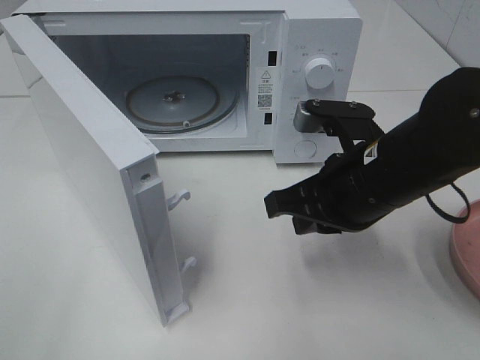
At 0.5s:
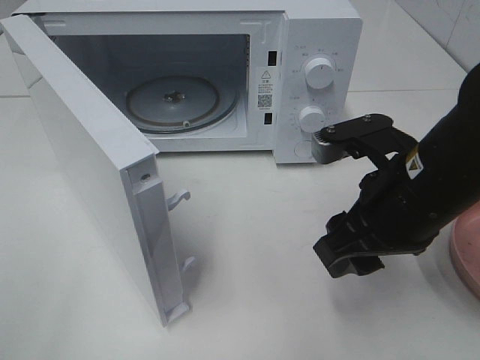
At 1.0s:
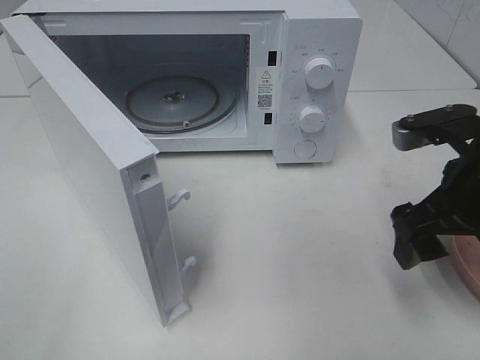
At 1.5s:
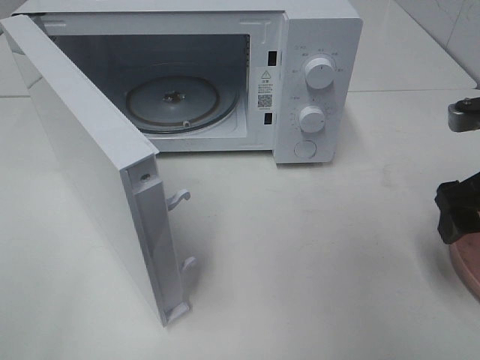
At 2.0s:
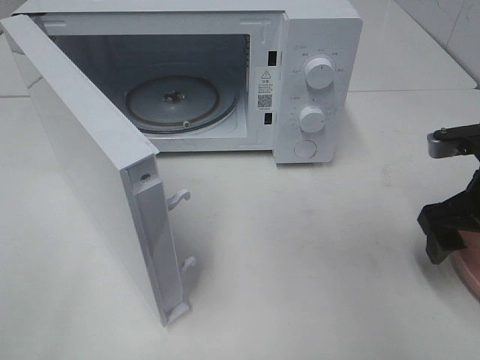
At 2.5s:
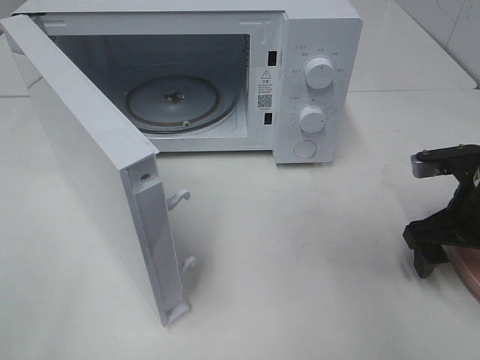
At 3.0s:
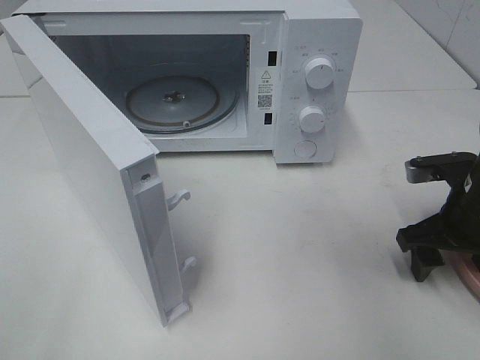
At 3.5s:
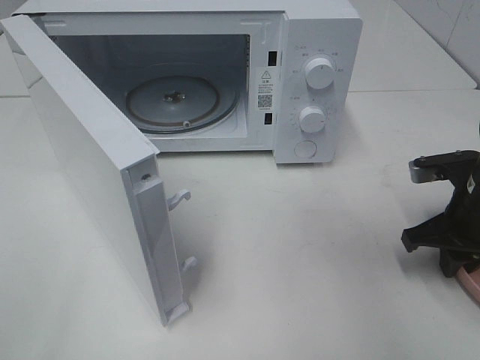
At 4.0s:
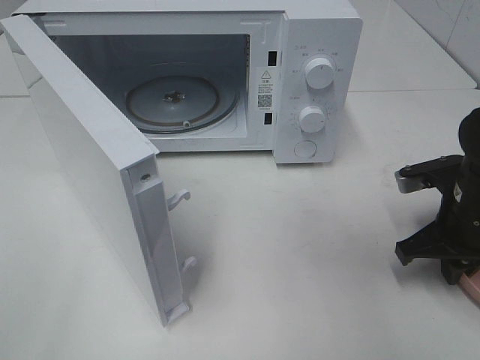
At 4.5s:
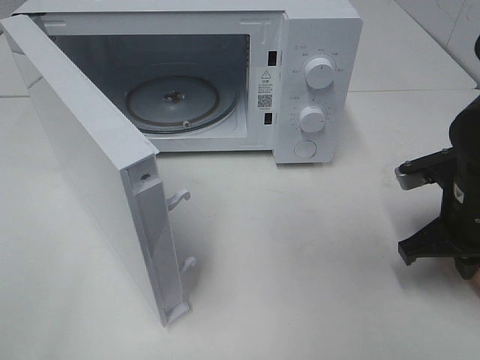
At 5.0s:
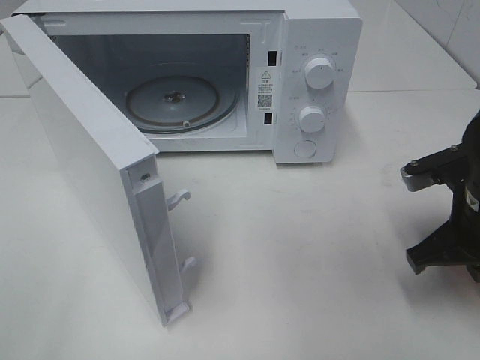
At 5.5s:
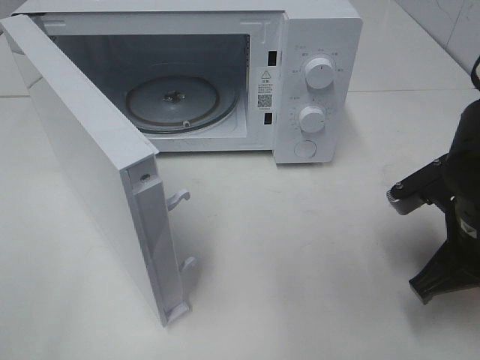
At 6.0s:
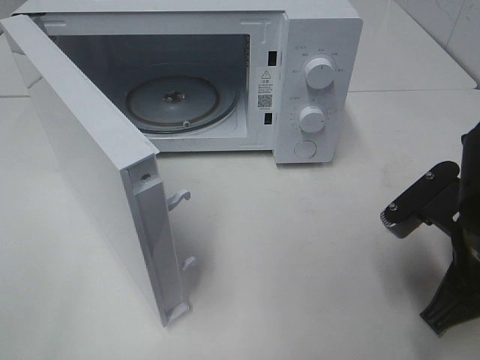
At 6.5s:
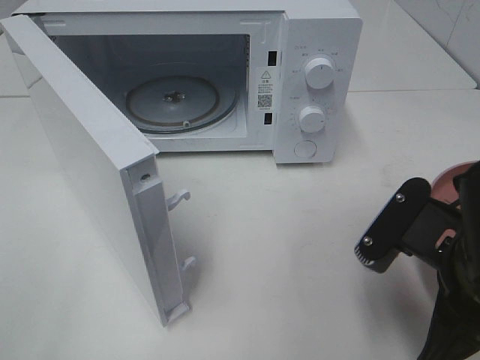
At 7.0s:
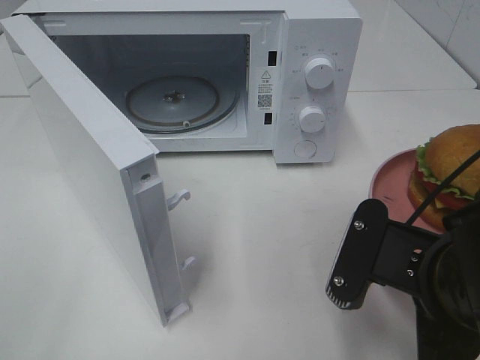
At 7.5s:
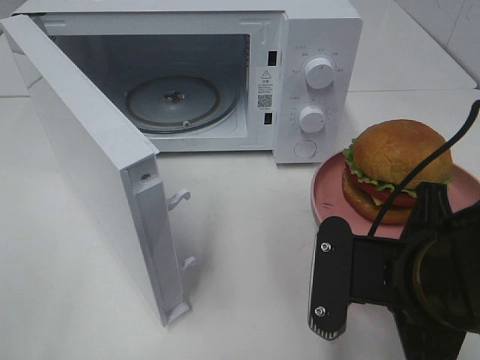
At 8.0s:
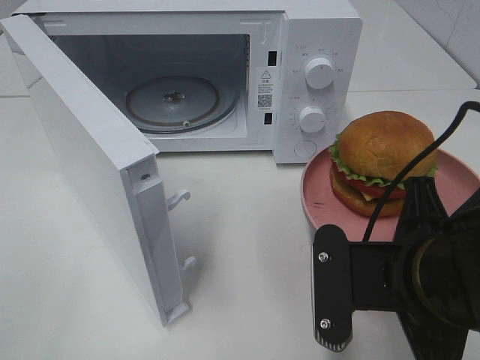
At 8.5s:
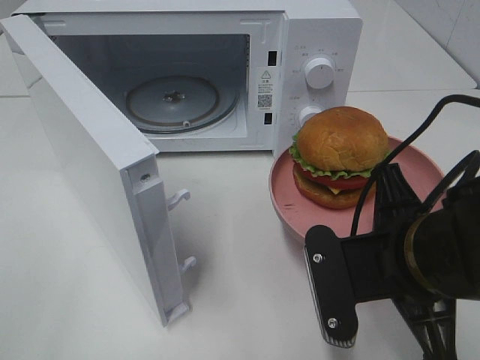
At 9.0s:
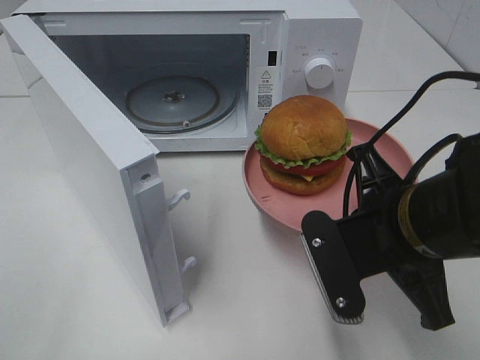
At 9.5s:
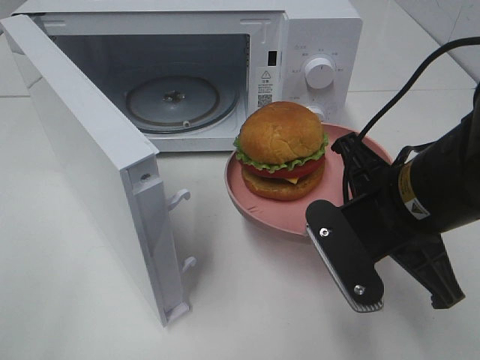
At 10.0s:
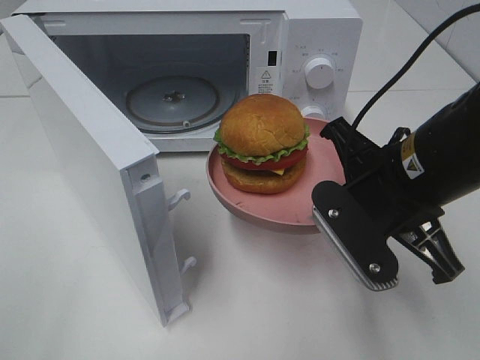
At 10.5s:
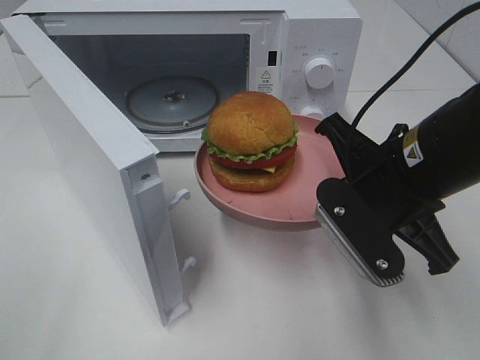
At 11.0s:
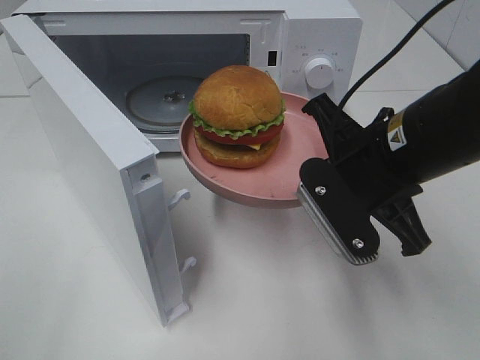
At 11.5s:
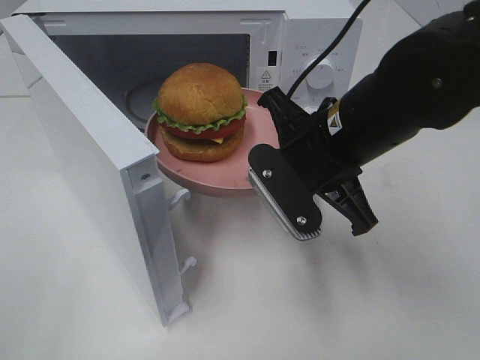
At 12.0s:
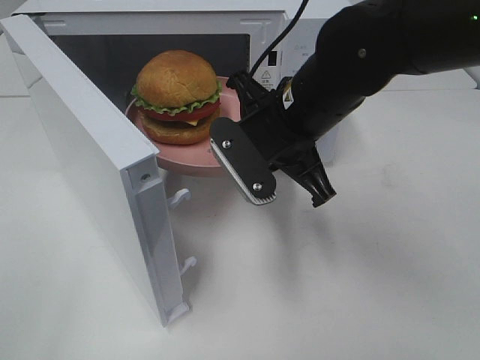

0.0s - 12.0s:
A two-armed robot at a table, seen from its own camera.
Task of the whole recording: Heat the burger.
Step, 0.0s - 4.5s: Right hand: grab the plate with the hamburger.
0.0s - 2.0s: The right gripper moves to the right, roughly 15 cm, and opens up.
2.0s - 4.0s: The right gripper ends up about 5 cm from where it was, and closes its fingers.
4.0s - 6.0s: The right gripper heads backward, to the left and upward, covering roughly 10 cm.
6.0s - 8.0s: The right gripper travels to the left by some 5 cm.
8.0s - 10.0s: The right gripper heads forward, covering approximately 10 cm.
10.0s - 12.0s: The right gripper goes some 10 cm forward and to the left.

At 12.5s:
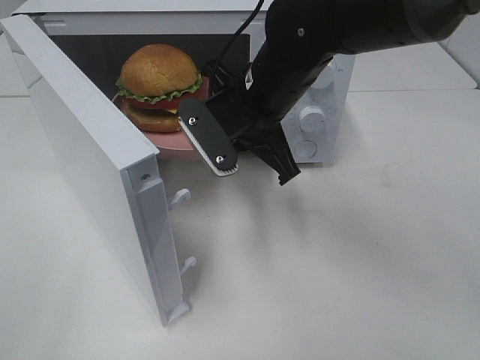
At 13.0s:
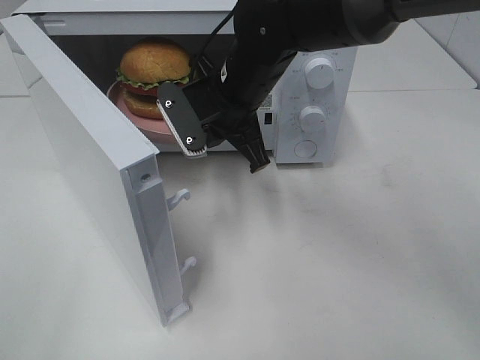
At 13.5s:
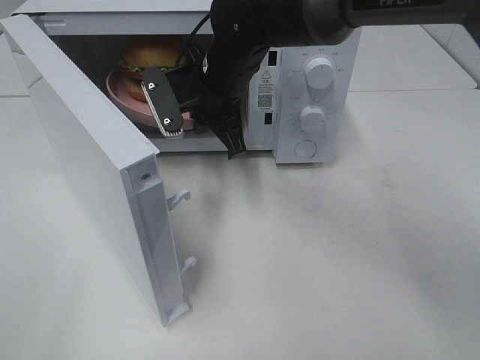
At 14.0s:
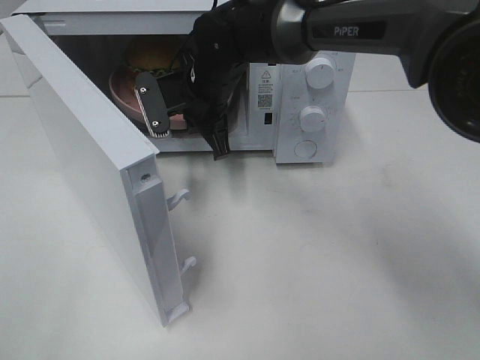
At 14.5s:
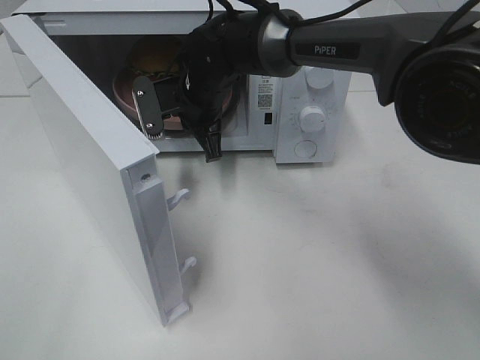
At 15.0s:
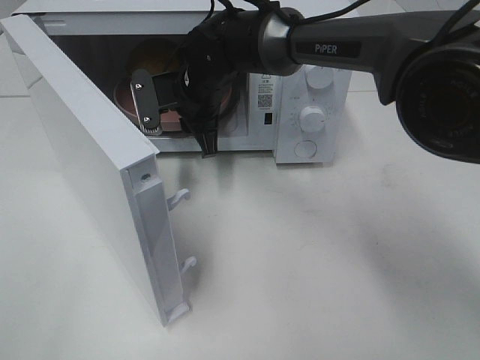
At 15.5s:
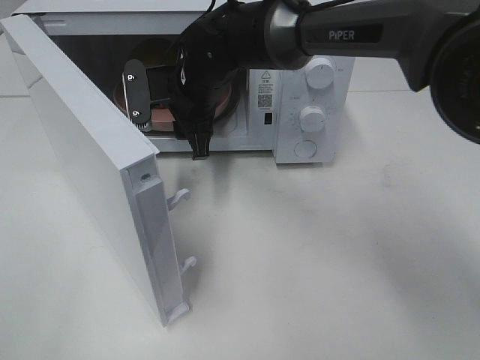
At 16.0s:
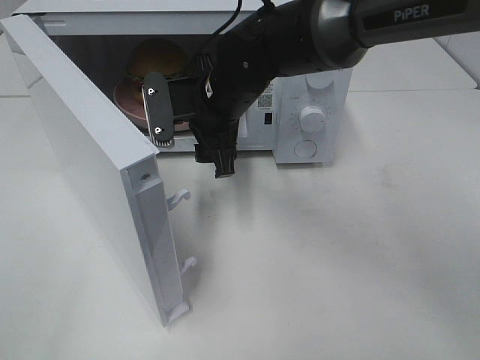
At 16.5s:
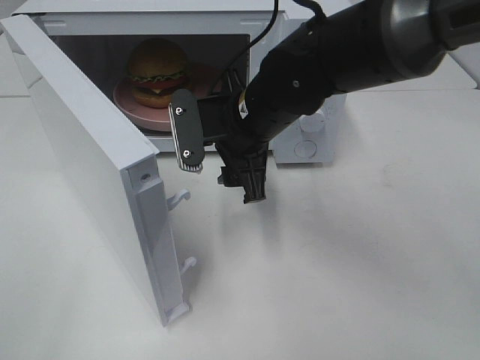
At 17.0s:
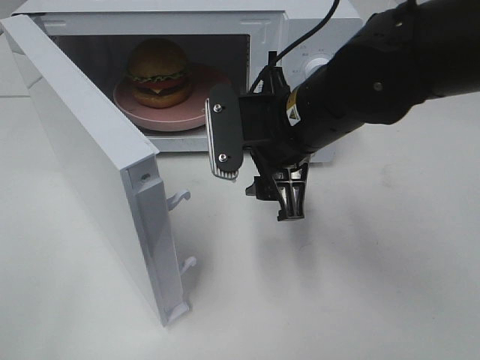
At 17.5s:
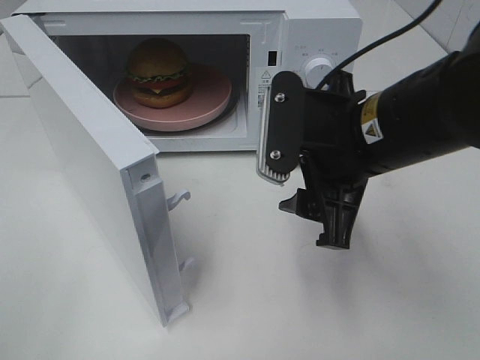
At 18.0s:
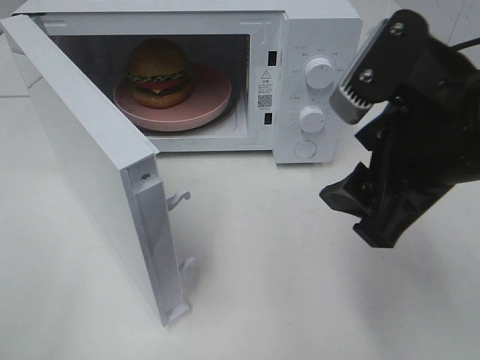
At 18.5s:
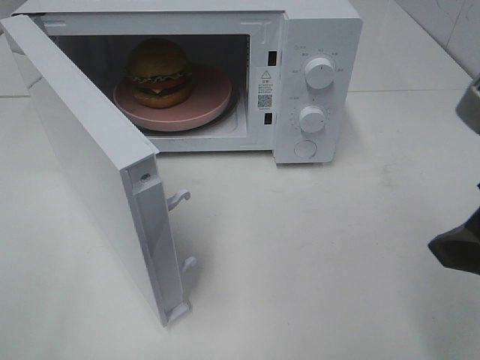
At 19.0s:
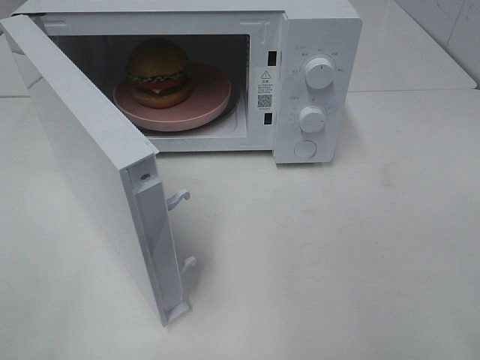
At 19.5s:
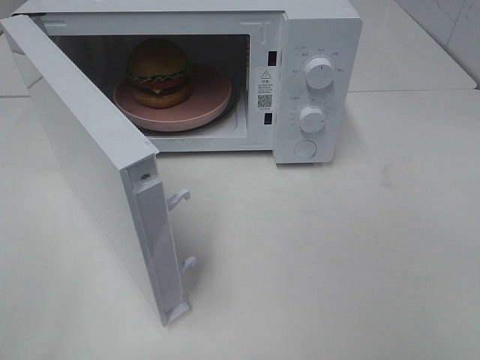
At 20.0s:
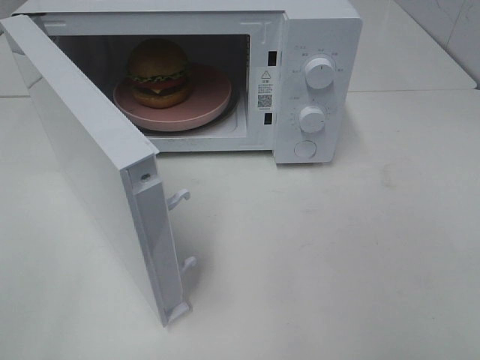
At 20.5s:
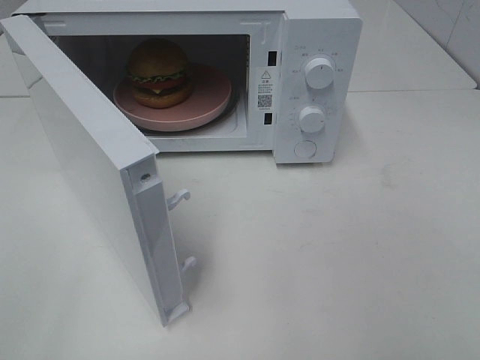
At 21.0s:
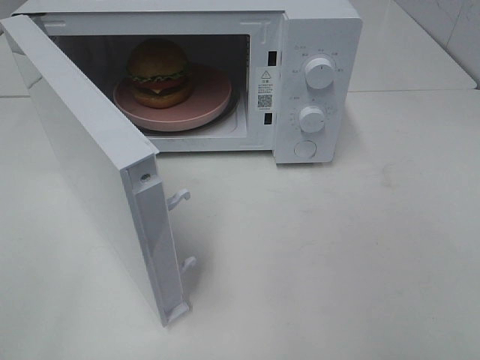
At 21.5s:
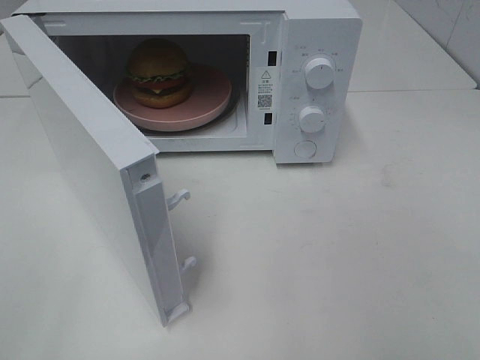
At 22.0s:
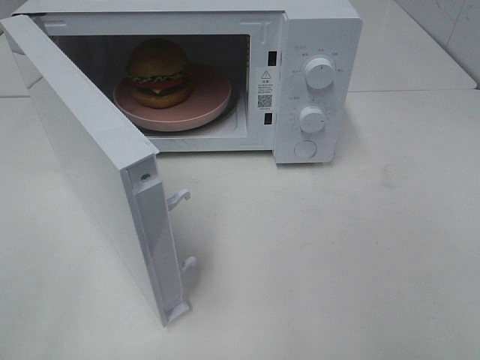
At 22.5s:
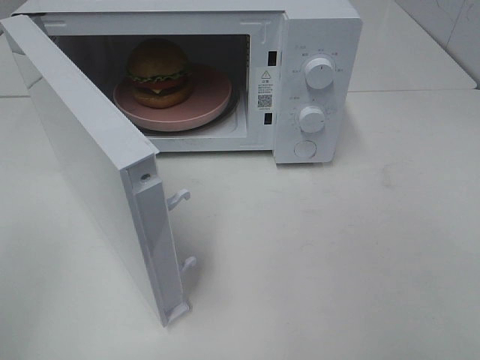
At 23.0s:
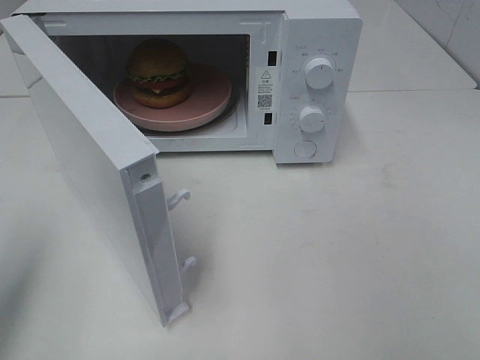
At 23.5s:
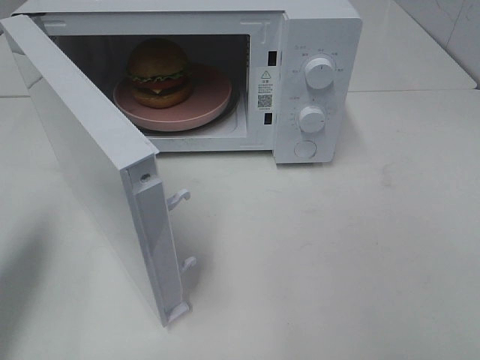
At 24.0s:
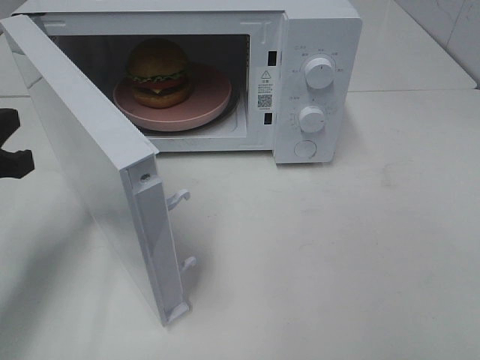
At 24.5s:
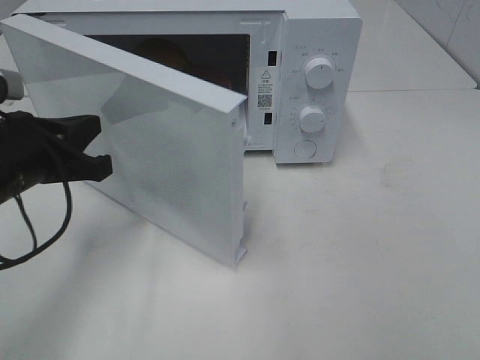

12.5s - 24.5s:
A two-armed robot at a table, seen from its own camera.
Task of the whole recording: Heat the burger.
Step, 12.5s - 15.5s: Right hand: place the plate in the microwave.
12.5s - 14.5s: The right gripper heads forward, to the left and downward, covering about 15 cm.
14.5s - 16.5s: The right gripper is displaced backward and to the right by approximately 15 cm, and opens.
16.5s - 18.5s: The right gripper is displaced backward, to the right and upward by some 30 cm.
18.5s - 20.5s: The right gripper heads backward and to the right, covering approximately 15 cm.
22.5s - 24.5s: The left gripper travels forward, downward and to the right by roughly 25 cm, and closes.

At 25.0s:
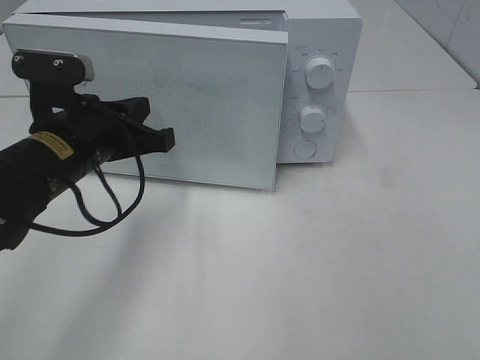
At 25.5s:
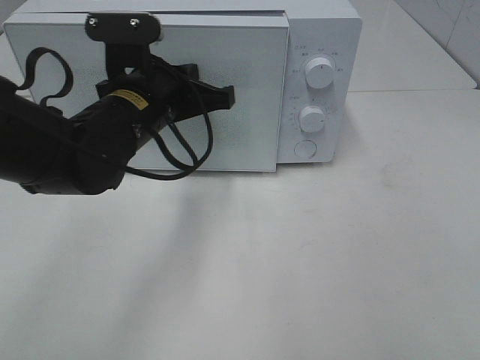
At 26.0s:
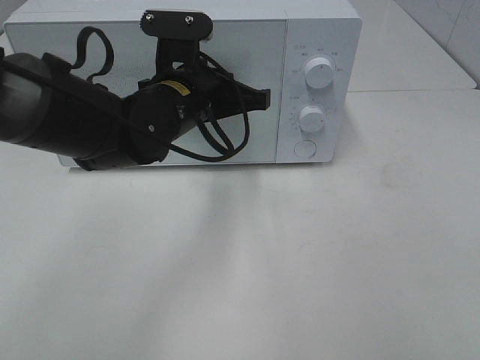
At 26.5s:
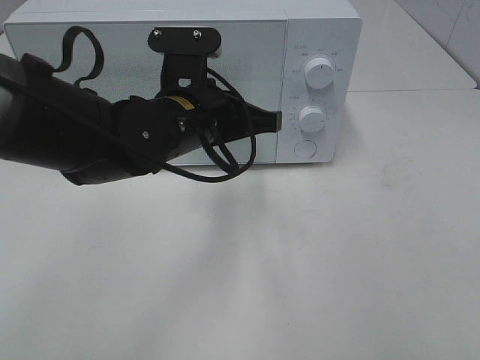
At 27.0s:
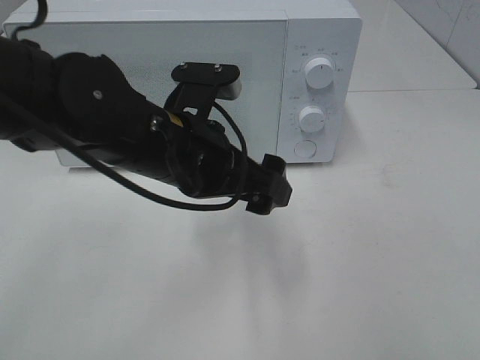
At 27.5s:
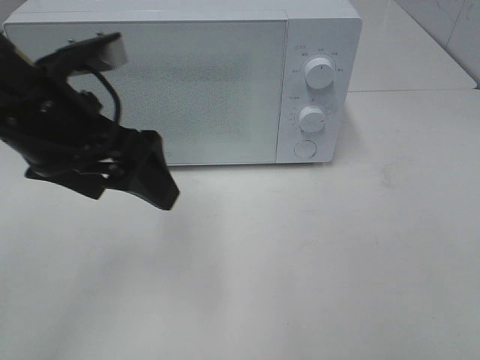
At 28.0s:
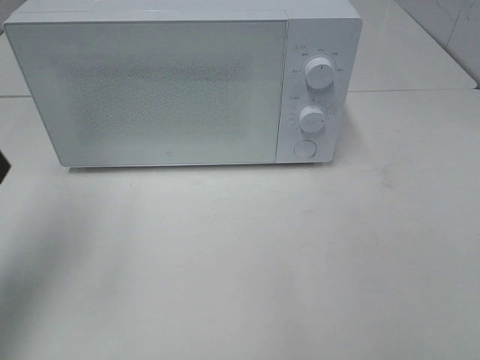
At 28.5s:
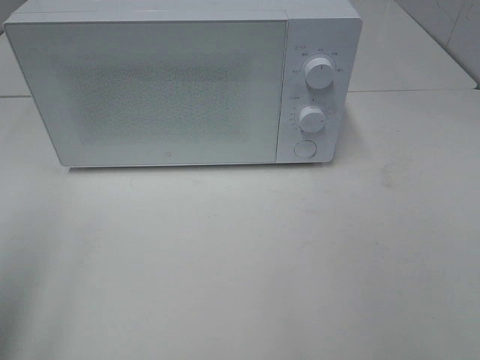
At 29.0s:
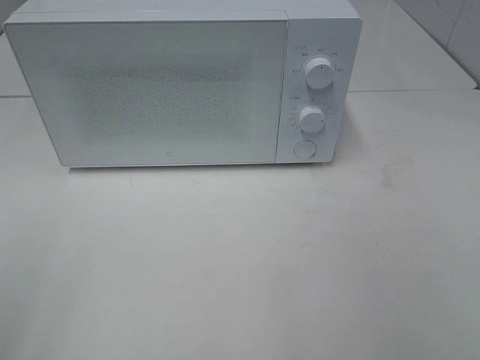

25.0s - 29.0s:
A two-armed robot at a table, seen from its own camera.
Task of the whole recording: Heat the burger.
25.0s - 27.0s: The left gripper heads to the right, covering about 10 cm, and opens its fingers.
27.0s - 29.0s: The left gripper goes approximately 35 cm to the left and backward.
